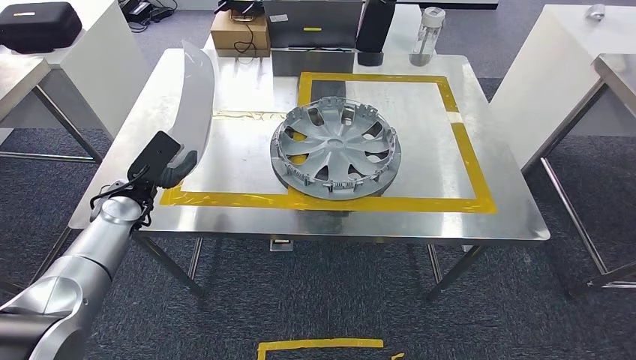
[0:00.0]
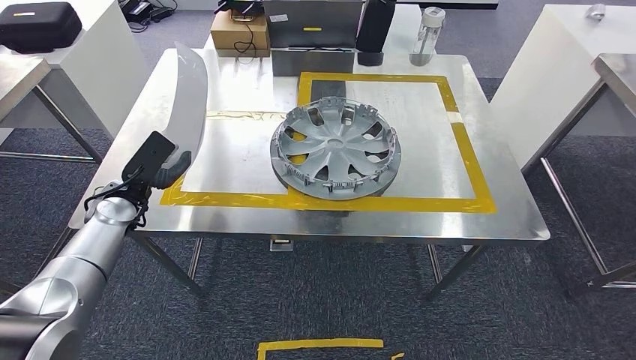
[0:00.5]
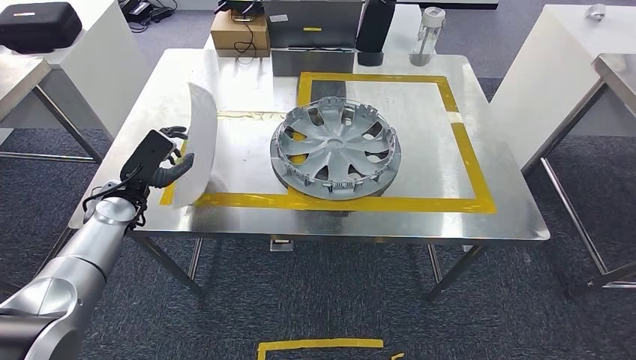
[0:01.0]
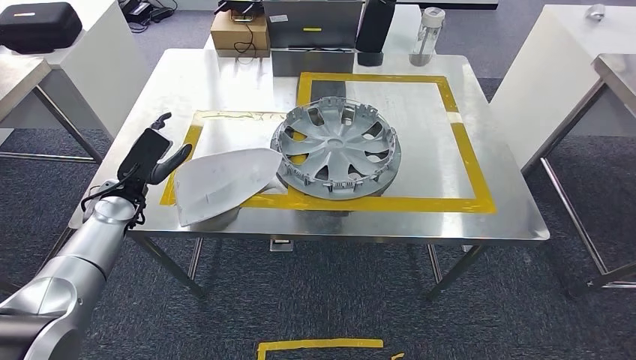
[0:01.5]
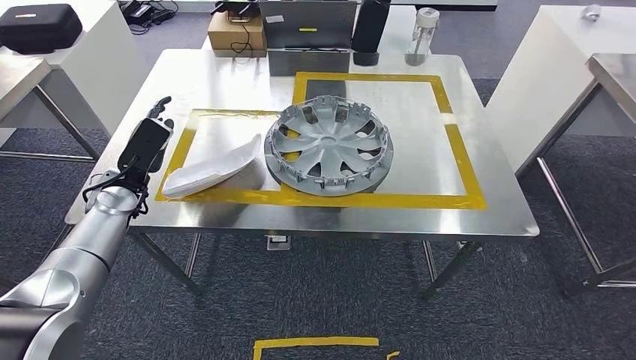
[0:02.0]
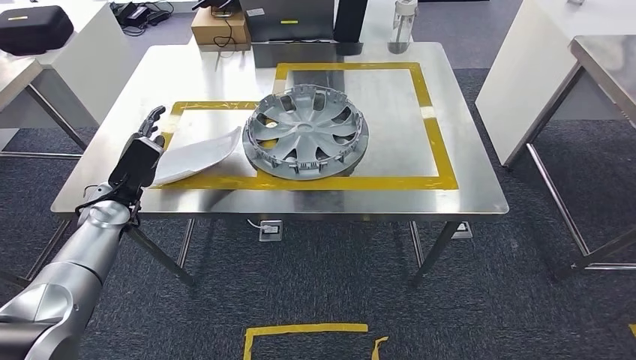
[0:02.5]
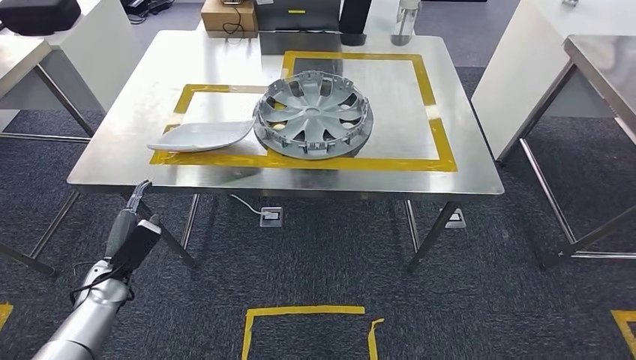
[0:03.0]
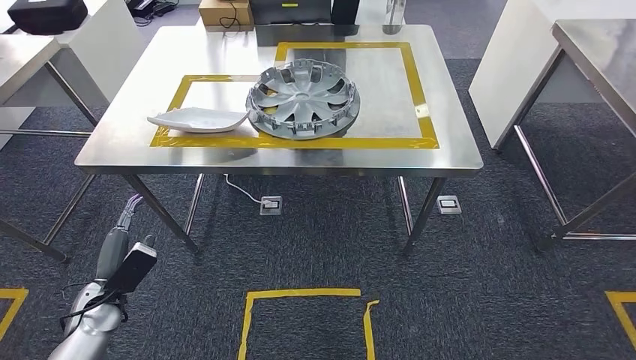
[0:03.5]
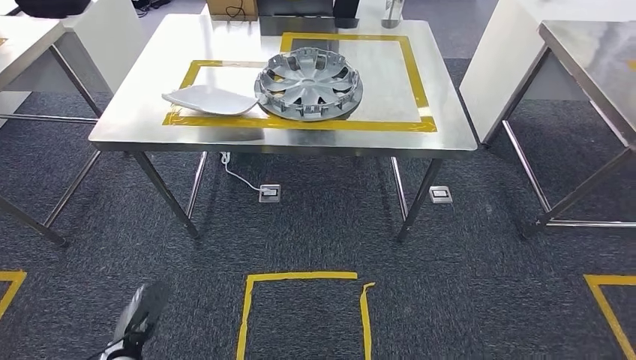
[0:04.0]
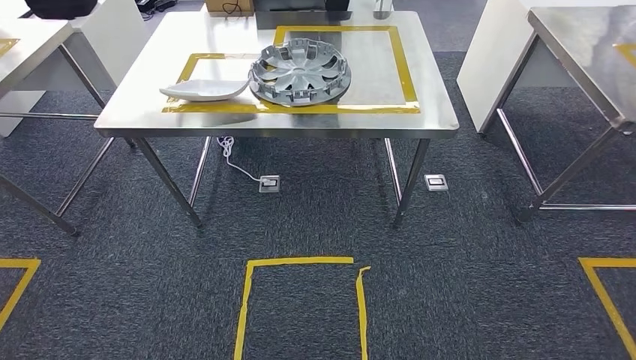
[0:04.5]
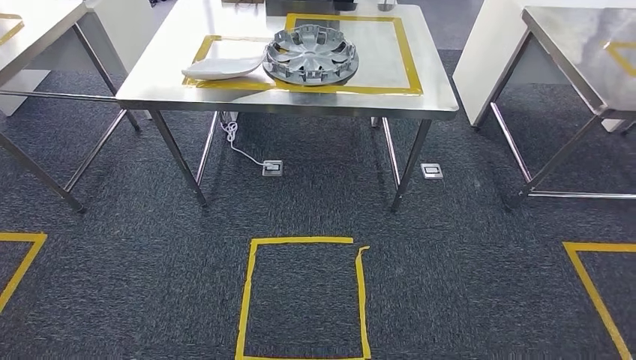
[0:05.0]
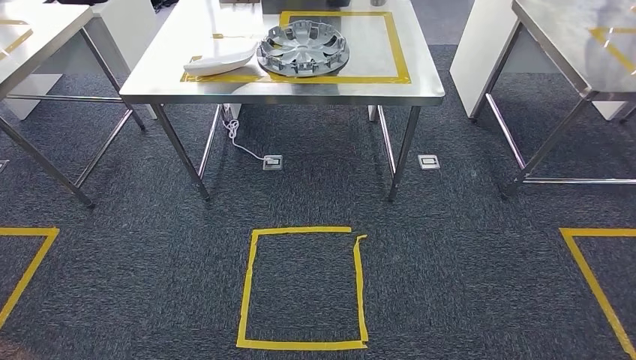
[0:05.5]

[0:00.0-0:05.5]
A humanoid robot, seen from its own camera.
Step, 0:02.5 to 0:05.5: Return to the initial position at the workbench.
